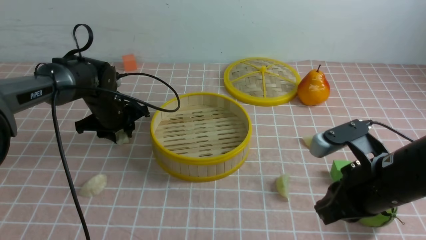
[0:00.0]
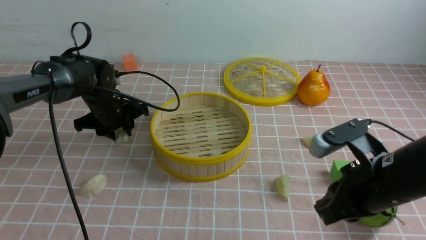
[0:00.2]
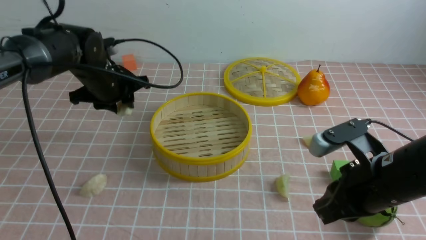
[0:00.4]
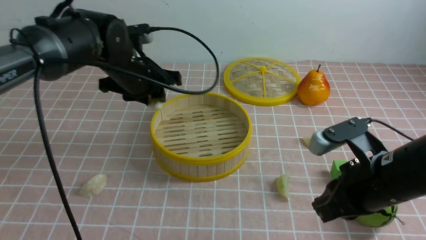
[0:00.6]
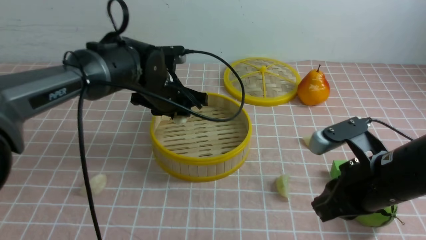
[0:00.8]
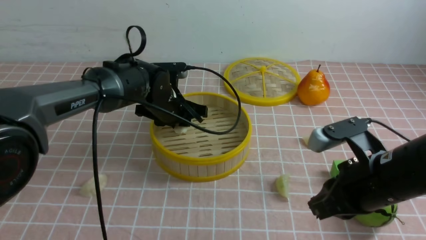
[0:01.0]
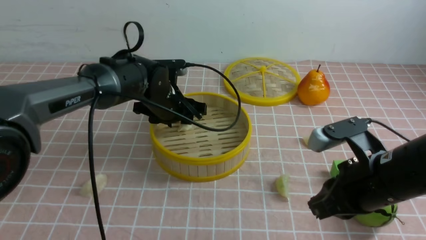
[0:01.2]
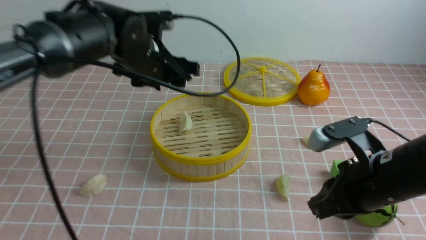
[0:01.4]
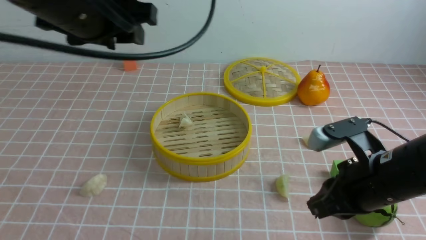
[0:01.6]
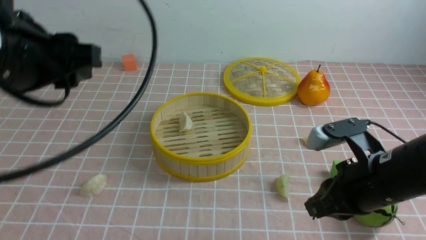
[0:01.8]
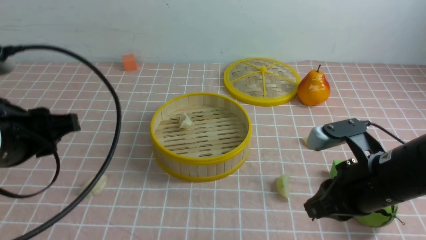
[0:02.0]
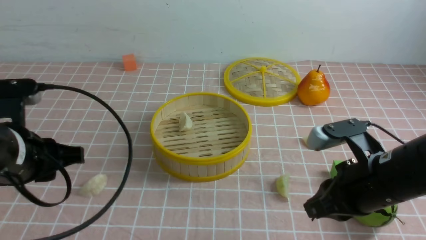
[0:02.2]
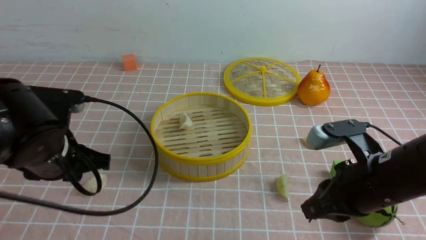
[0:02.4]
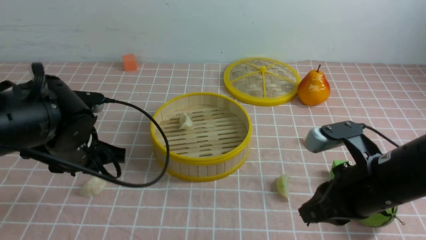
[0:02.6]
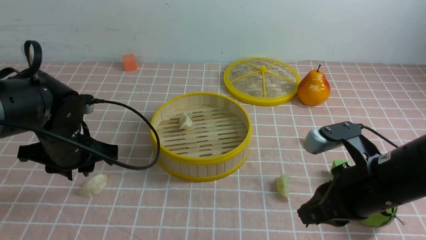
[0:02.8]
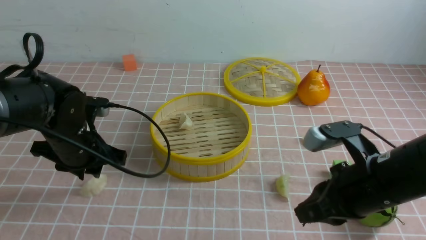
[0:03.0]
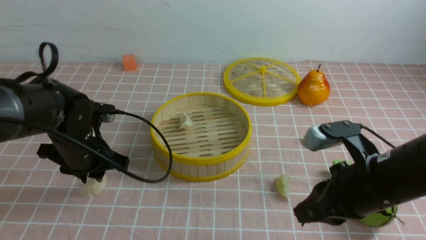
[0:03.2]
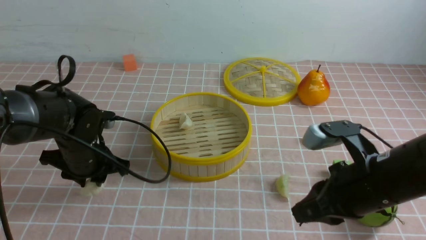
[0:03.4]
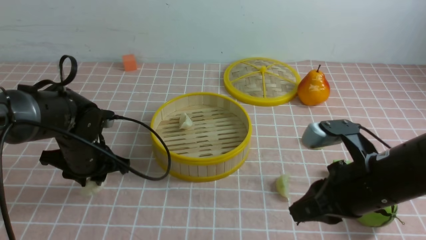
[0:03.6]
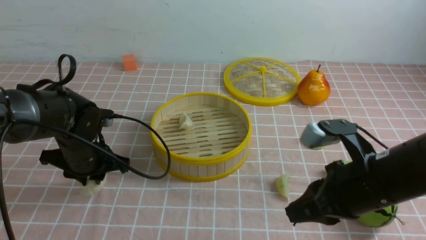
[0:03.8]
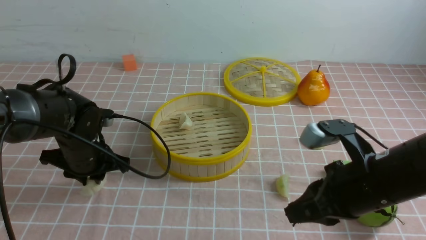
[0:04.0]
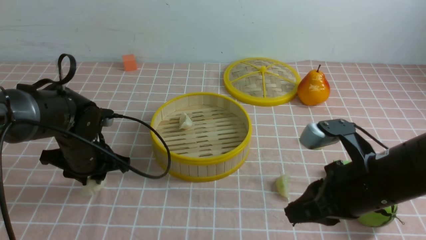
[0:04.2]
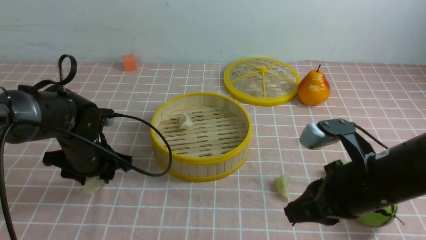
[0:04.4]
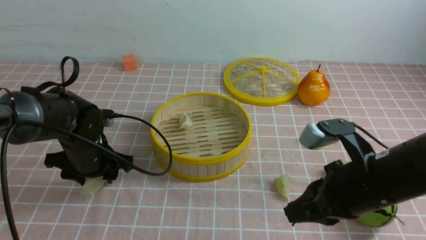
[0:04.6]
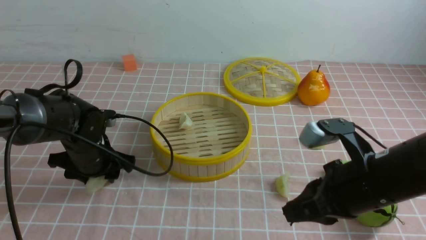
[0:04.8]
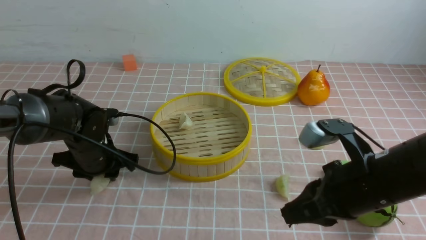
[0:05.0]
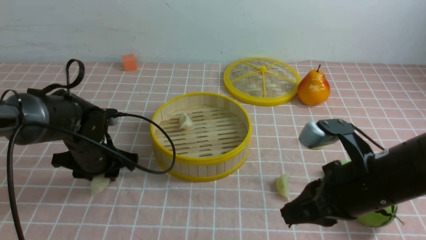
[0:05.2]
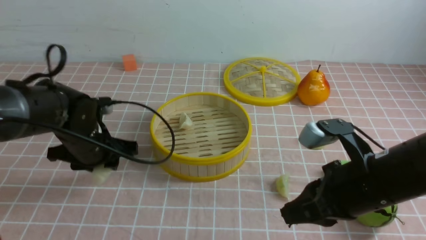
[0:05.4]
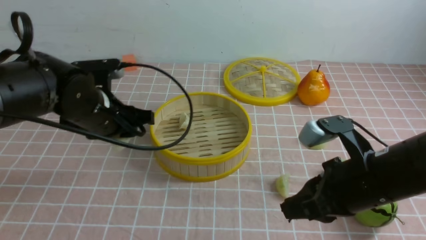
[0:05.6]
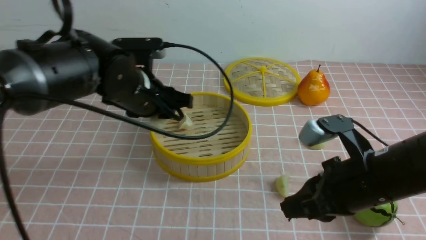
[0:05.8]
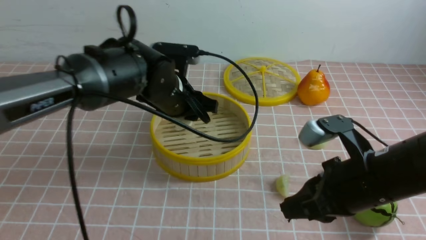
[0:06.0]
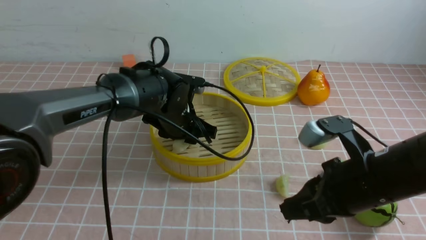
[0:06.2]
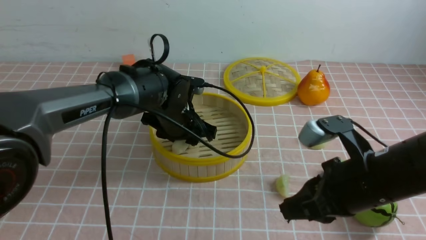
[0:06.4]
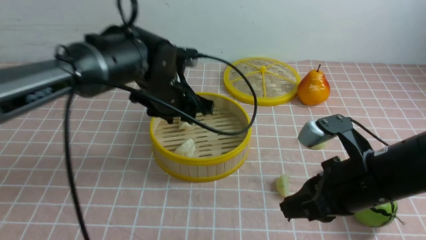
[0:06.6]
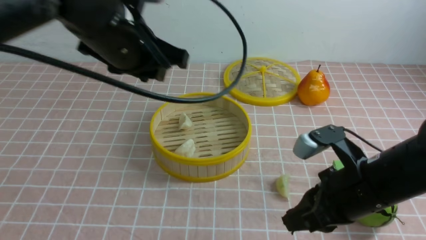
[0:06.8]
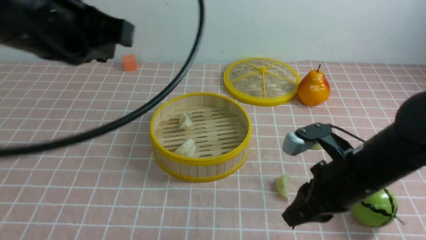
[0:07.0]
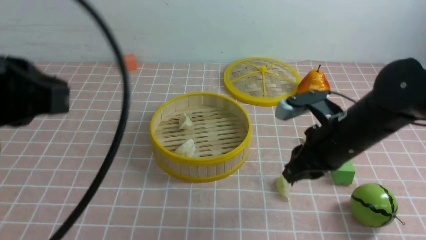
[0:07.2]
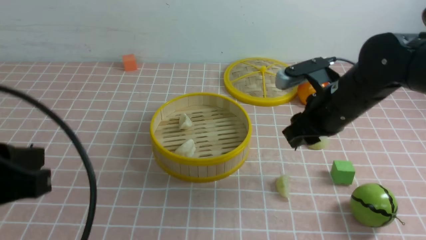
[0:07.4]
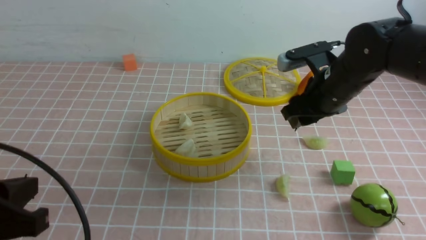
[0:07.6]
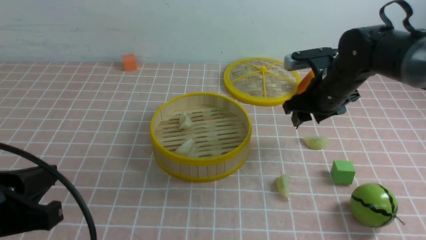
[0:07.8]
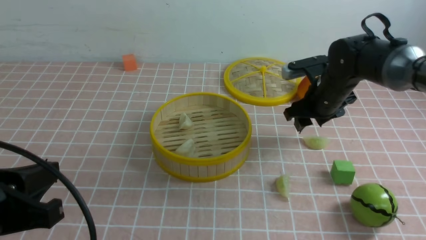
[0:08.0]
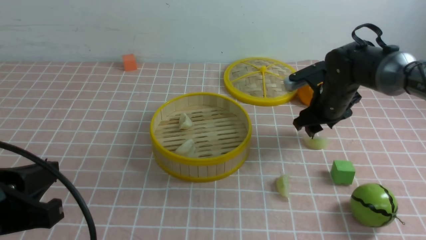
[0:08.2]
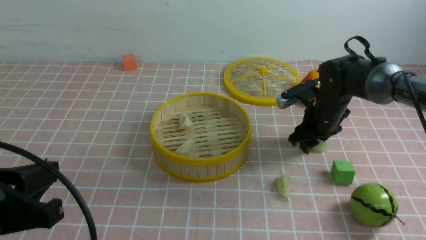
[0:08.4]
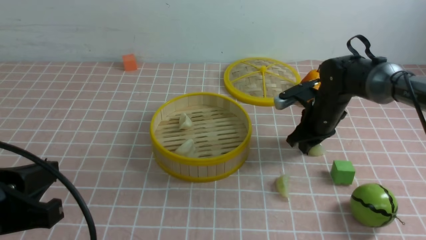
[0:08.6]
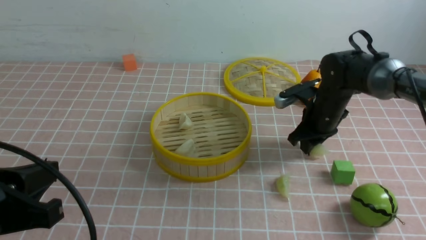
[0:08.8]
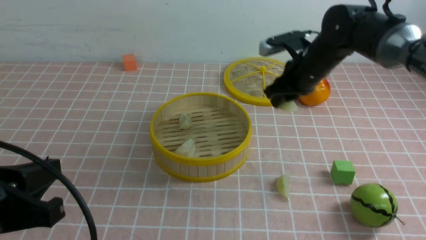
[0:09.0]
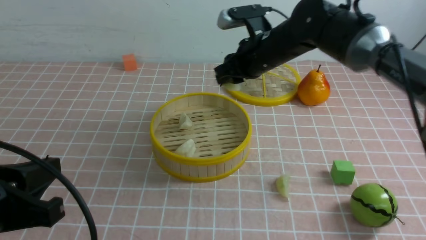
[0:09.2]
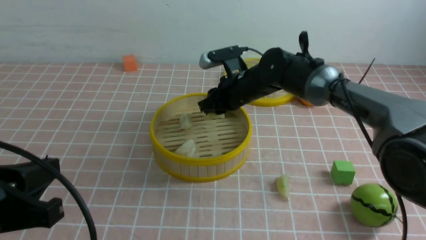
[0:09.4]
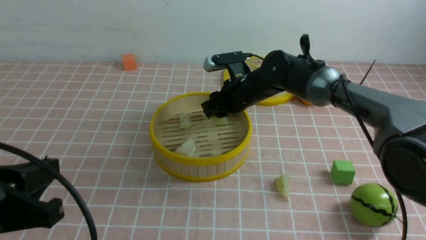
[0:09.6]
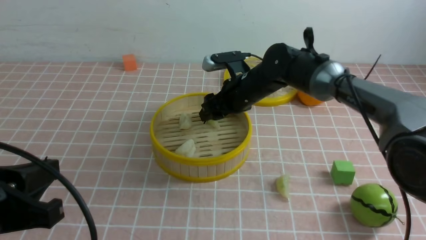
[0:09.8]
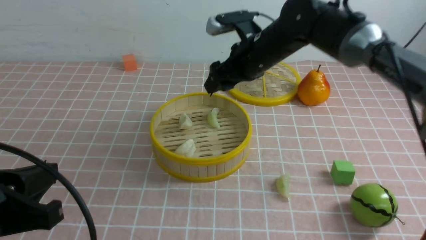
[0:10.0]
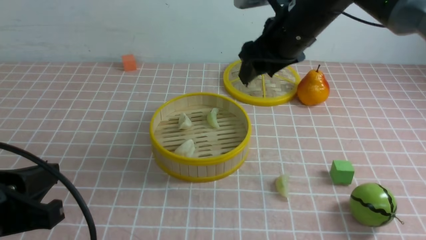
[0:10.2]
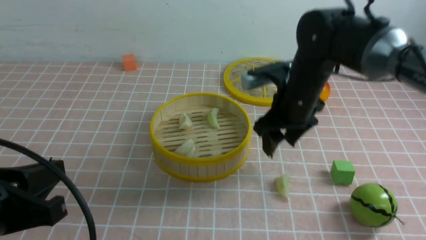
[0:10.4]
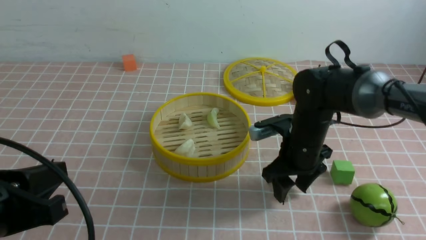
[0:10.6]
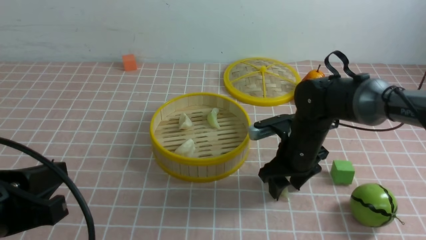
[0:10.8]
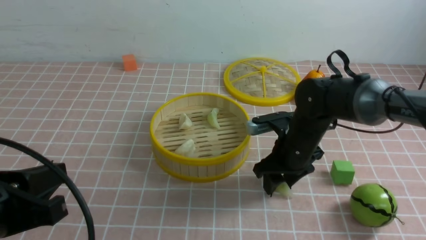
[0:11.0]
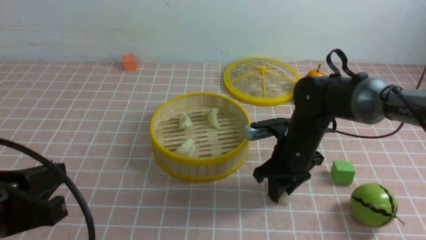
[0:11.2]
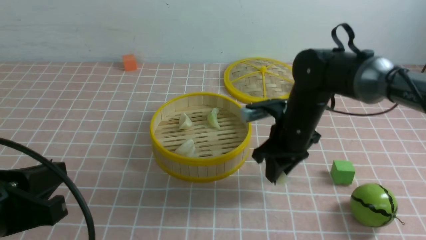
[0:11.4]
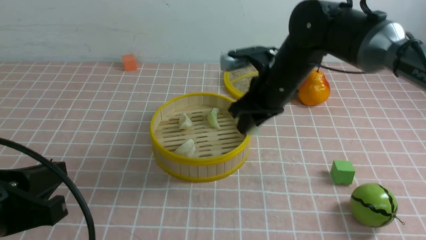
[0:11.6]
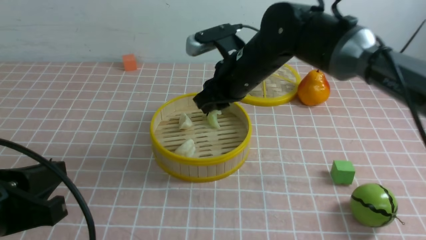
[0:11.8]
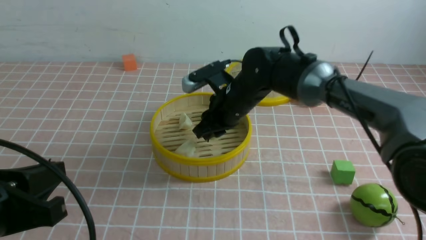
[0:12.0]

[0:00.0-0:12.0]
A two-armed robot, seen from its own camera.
Task of the whole recording: put the dumplings into the steamer on the table with the pink tablecloth.
Step, 0:00.4 to 0:01.2: use the left arm to put the dumpling into the steamer.
Step, 0:01.4 to 0:05.4: use the left arm to grab a dumpling.
Step, 0:05.6 to 0:06.4: use the left arm to put the dumpling into the steamer.
Step, 0:06.6 to 0:08.8: use the right arm to grab a dumpling.
Step, 0:09.0 to 0:10.0: use the right arm to put the dumpling into the steamer.
Step, 0:10.2 to 0:11.2: use the right arm to grab a dumpling.
0:00.0 to 0:01.6: The left gripper goes up and down, some 20 cm each way, reversing 2 times.
0:01.6 to 0:03.0: The left gripper is displaced downward by about 20 cm.
0:03.0 to 0:04.4: The grippers move only a little.
0:04.4 to 0:06.0: The left gripper travels to the right and upward by approximately 15 cm.
0:06.0 to 0:07.6: The right gripper goes some 15 cm forward, and opens. The left gripper goes some 30 cm backward and to the left, and closes.
0:07.6 to 0:09.0: The right gripper shifts approximately 5 cm forward, reaches about 10 cm downward, then returns, and closes up.
0:09.0 to 0:10.4: The right gripper swings up and down, roughly 10 cm each way, with 2 reversals, and opens.
0:10.4 to 0:12.0: The right gripper moves to the left, roughly 10 cm, and closes its fingers.

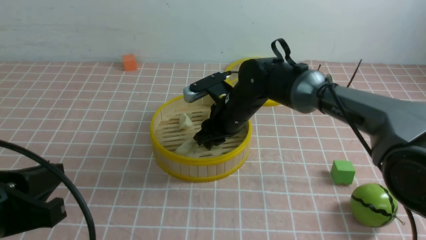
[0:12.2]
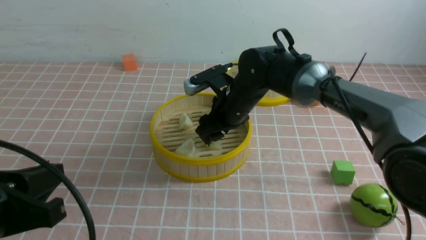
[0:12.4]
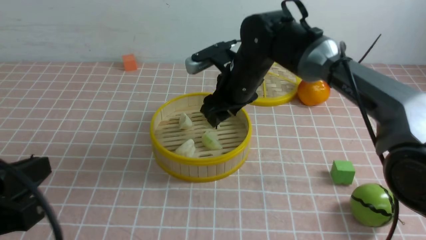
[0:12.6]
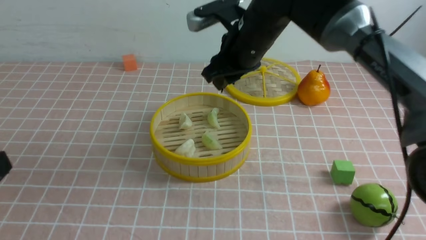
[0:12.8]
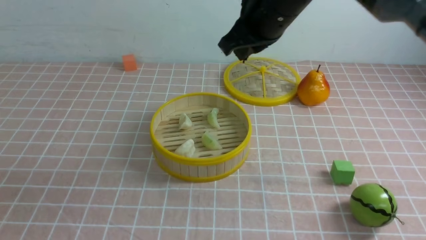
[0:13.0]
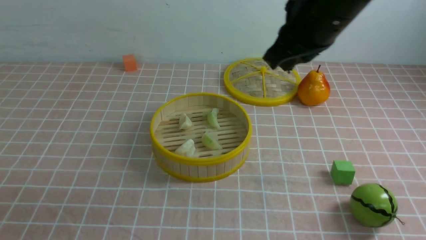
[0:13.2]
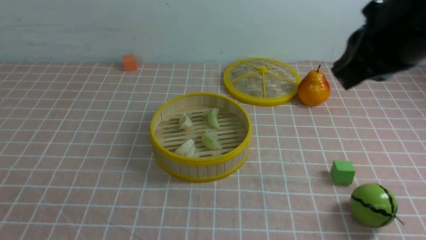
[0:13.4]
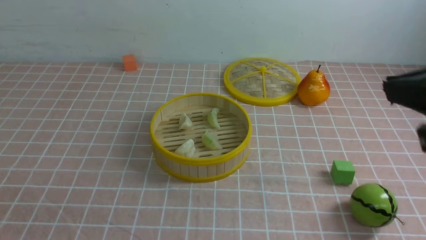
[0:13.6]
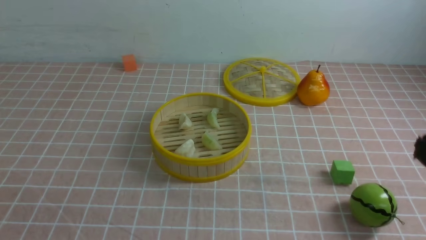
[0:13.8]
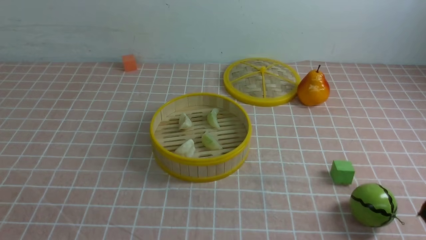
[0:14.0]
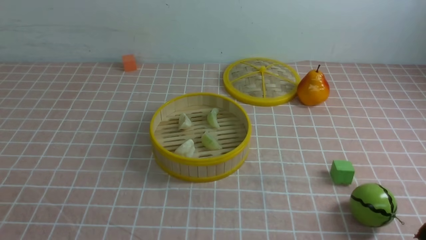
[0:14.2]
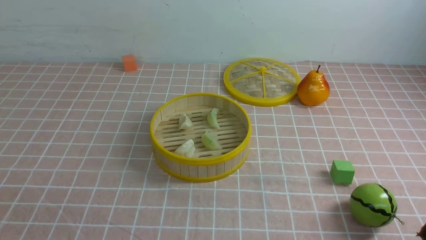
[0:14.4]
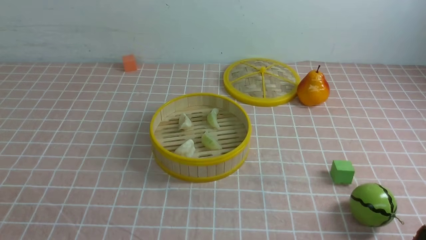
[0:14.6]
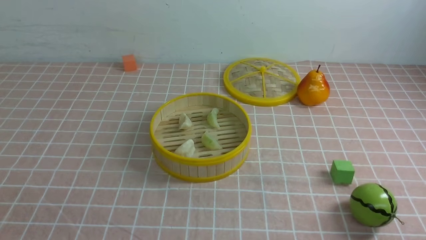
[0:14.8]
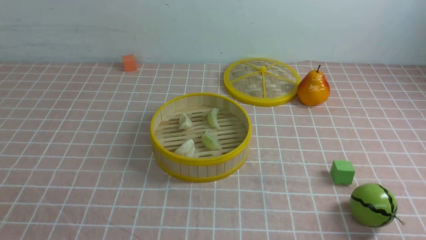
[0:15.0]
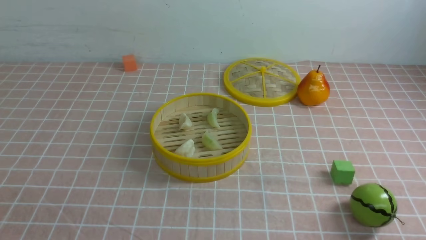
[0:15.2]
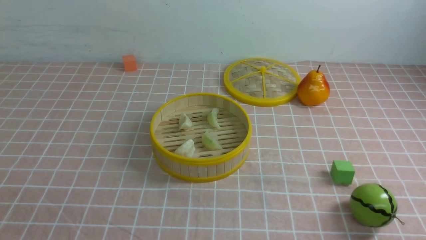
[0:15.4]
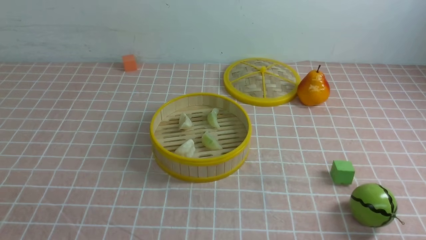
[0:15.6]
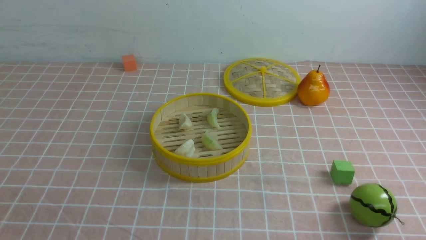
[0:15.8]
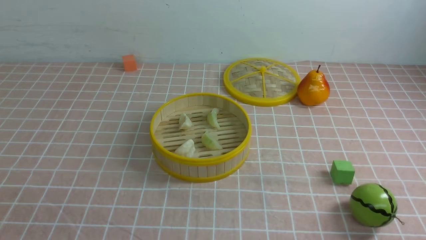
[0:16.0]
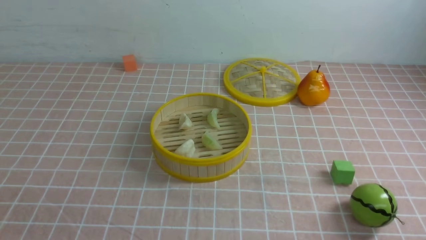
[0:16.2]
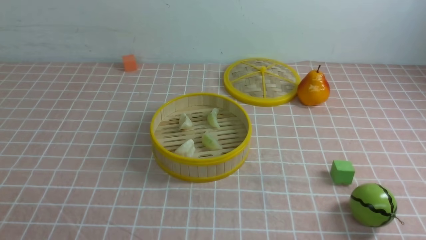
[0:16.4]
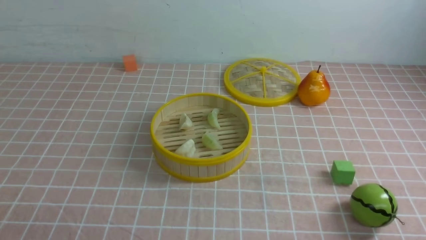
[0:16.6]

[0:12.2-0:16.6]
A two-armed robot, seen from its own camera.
Task of the whole recording: put the dumplings into the steamer on the table with the pink tablecloth.
0:12.2 to 0:13.6: The right gripper heads backward, upward and to the right, covering roughly 40 cm, and closes. Meanwhile the left gripper moves backward, roughly 10 cm.
0:13.6 to 0:15.2: The right gripper heads downward and backward, covering about 25 cm.
